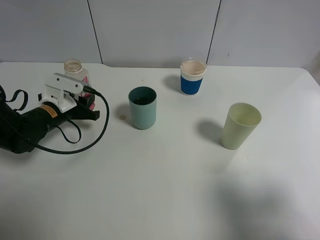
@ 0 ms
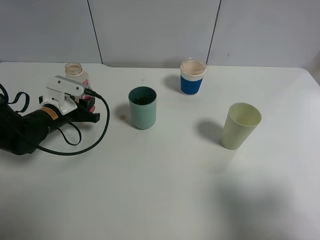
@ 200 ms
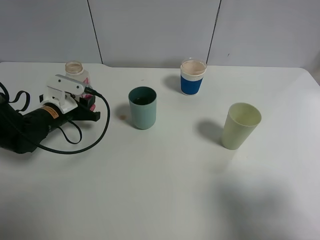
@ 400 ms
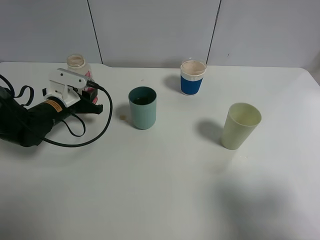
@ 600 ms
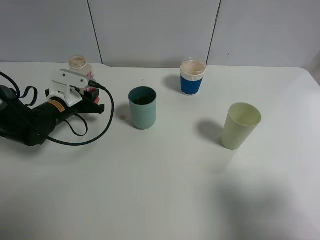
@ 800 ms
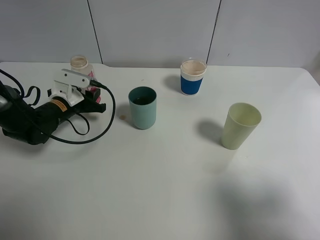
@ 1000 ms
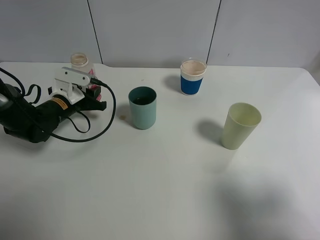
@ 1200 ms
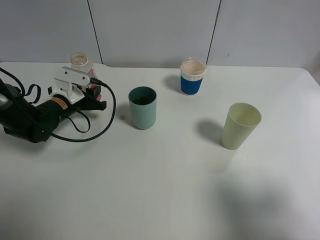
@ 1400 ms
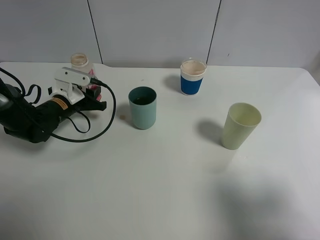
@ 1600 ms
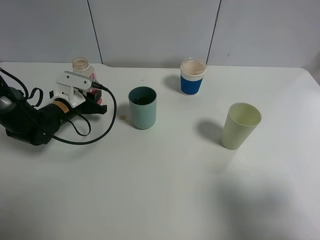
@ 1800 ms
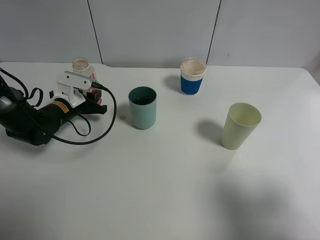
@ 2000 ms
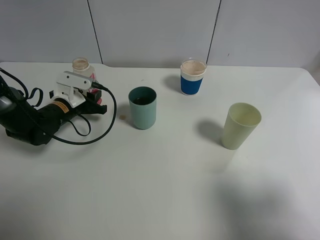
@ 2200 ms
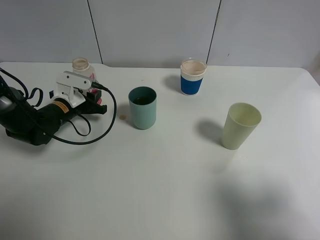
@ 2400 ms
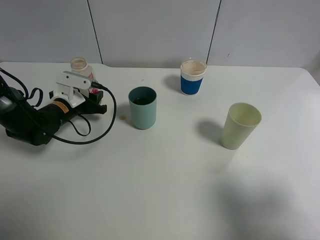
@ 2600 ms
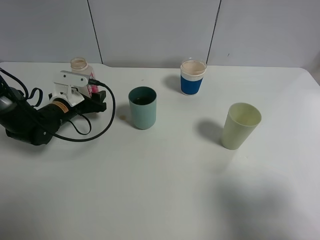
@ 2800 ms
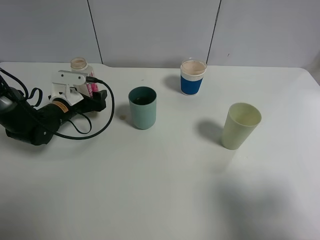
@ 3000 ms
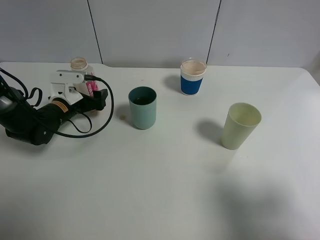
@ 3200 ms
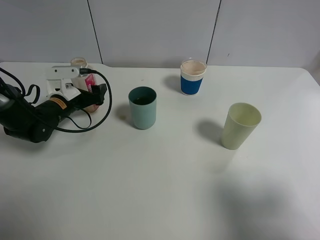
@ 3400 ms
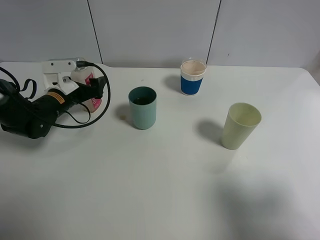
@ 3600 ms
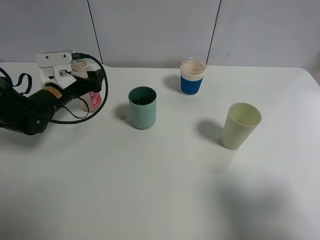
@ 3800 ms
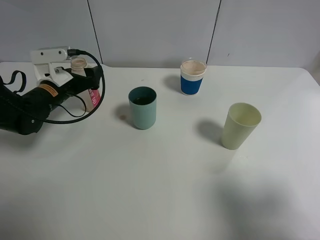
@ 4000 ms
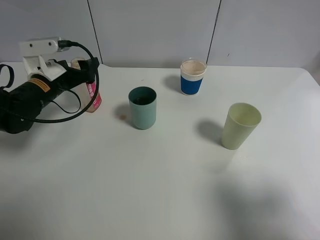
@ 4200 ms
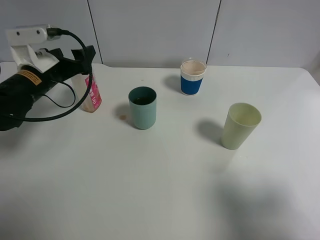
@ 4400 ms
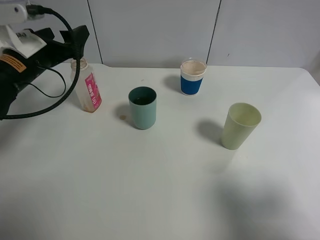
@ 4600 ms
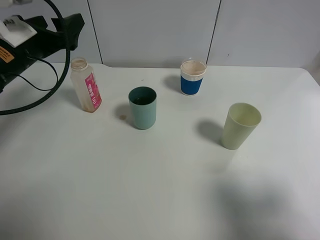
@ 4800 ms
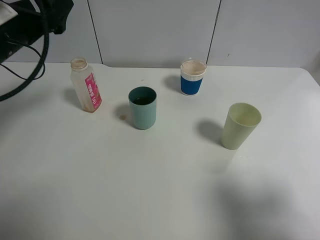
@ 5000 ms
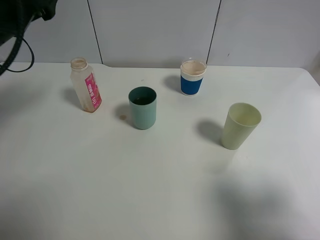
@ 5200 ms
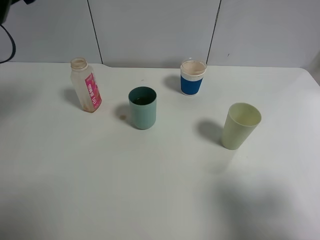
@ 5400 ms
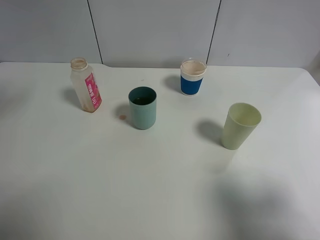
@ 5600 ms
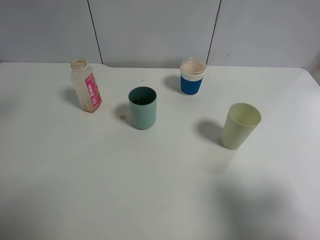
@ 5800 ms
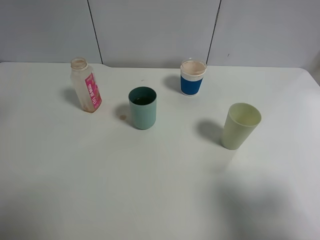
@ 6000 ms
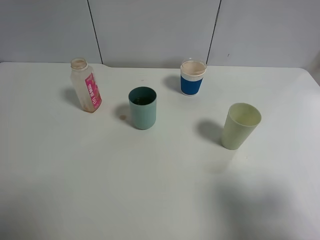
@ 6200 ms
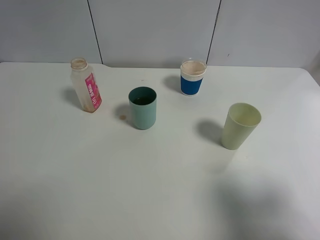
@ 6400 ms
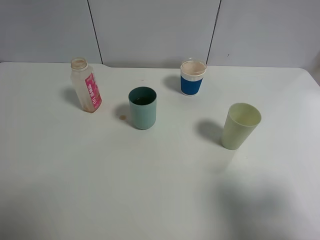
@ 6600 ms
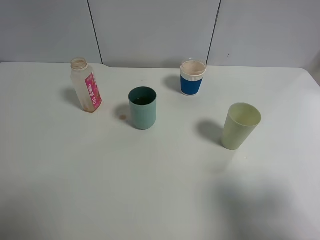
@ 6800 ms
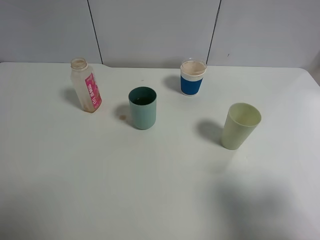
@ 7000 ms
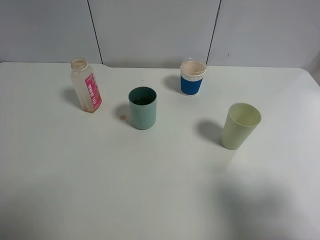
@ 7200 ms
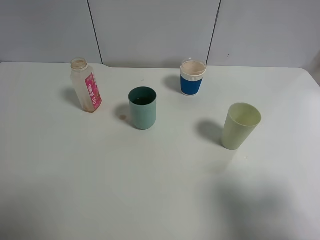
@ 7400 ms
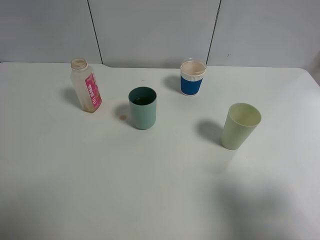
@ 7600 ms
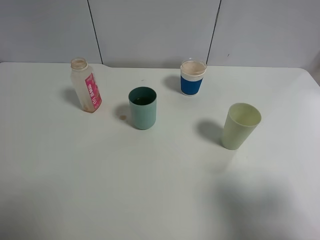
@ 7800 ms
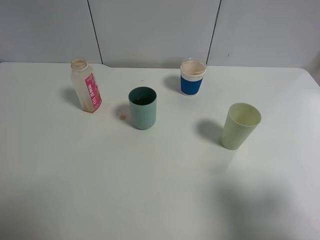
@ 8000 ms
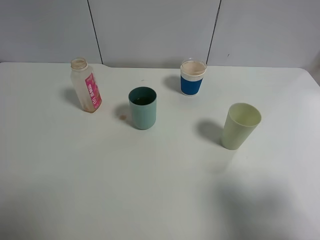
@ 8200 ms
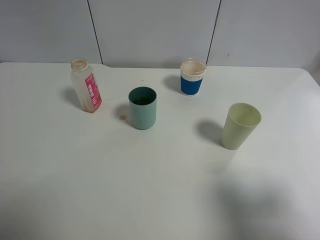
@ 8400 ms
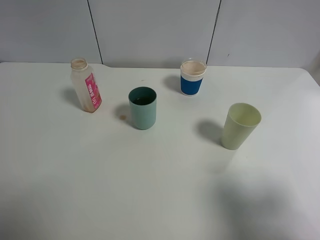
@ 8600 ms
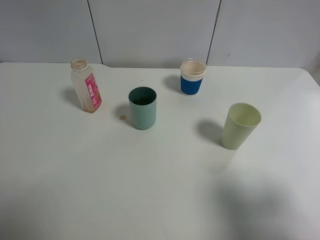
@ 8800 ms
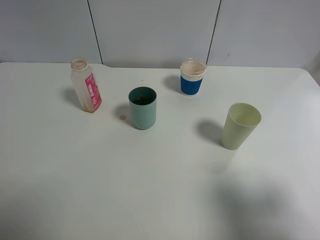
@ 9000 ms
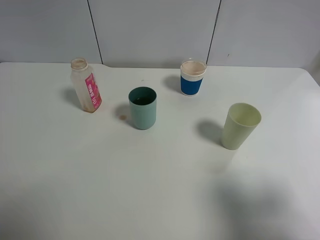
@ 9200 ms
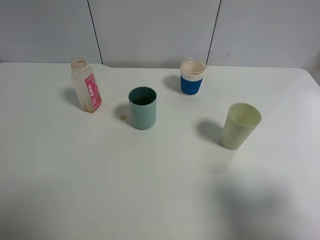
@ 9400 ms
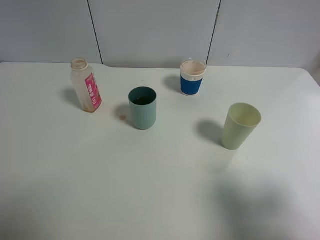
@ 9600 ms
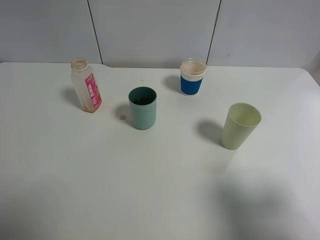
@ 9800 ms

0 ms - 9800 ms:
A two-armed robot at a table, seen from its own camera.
Task of the whole recording: use a gripper to hold the bottle of the drink and pour it into a random cup.
Step, 0 ms - 4400 ms: Place the cranberry juice bottle on the table with the left gripper.
0 ms - 1400 ms: The grippers move only a little.
1400 ms - 2800 ms: The left gripper opens.
2800 ms - 4200 ms: The left gripper travels upward by about 10 cm.
4200 ms - 5600 ms: The left gripper travels upward and backward by roughly 20 cm.
8400 ms - 9800 ms: Both grippers stay about where they are.
